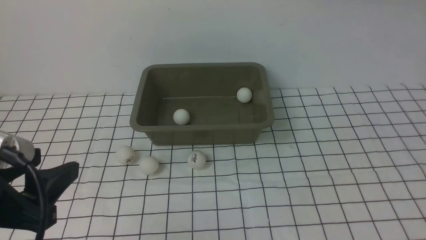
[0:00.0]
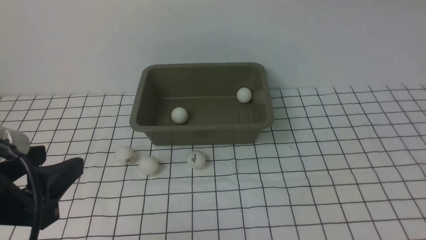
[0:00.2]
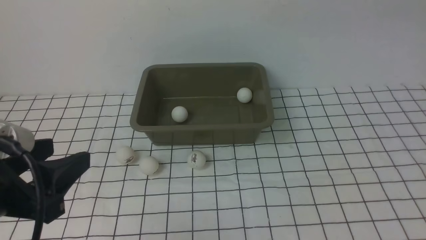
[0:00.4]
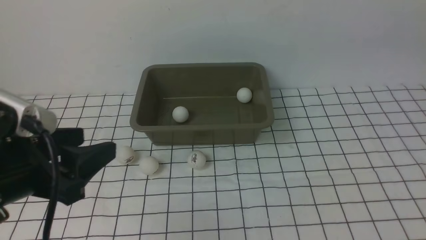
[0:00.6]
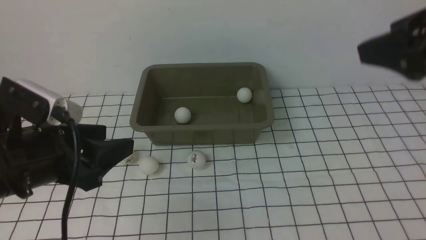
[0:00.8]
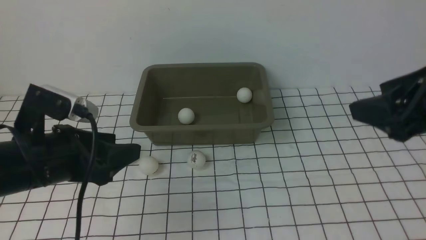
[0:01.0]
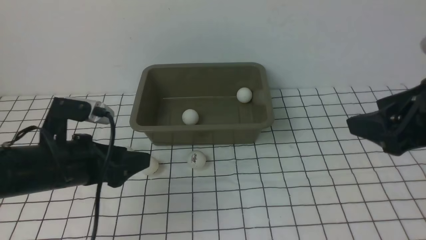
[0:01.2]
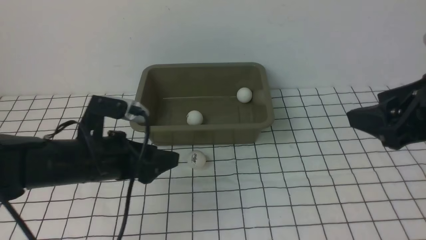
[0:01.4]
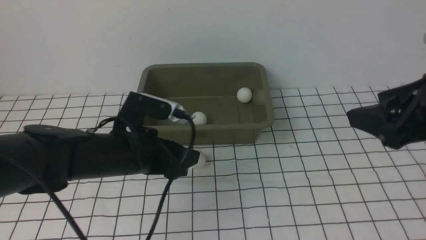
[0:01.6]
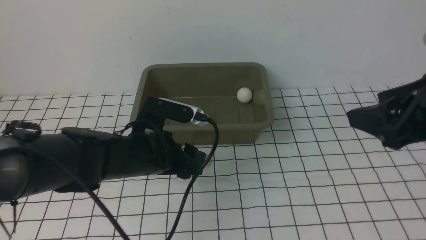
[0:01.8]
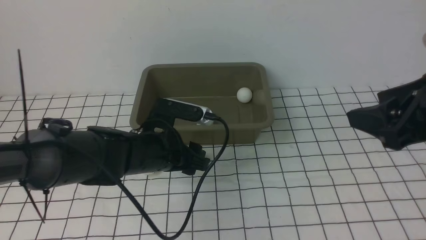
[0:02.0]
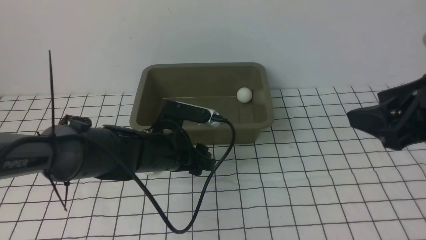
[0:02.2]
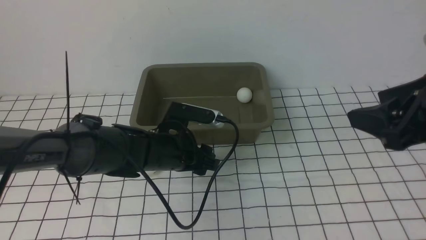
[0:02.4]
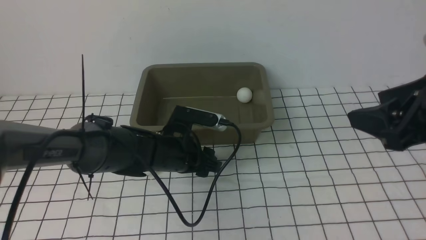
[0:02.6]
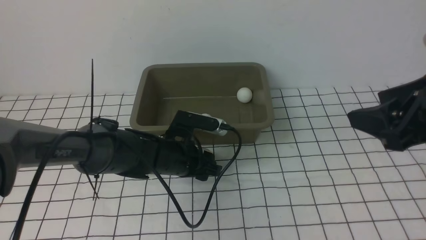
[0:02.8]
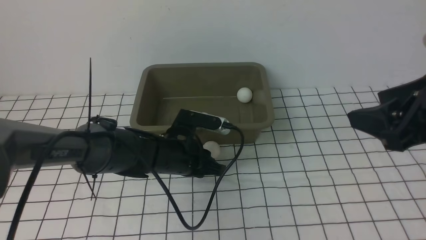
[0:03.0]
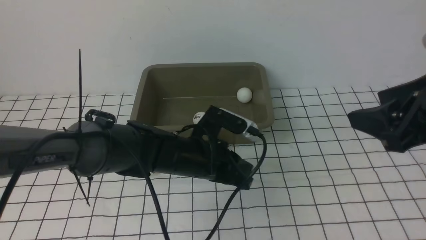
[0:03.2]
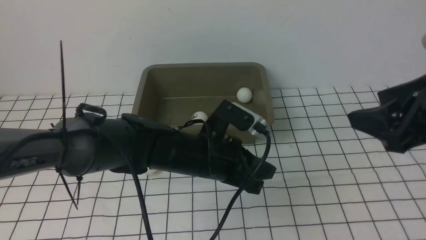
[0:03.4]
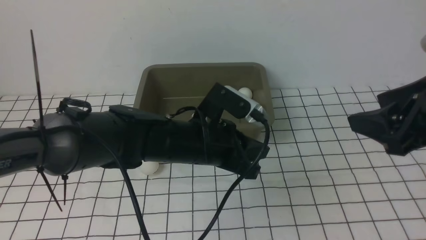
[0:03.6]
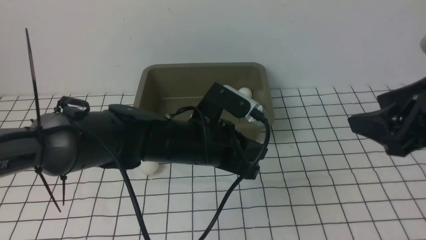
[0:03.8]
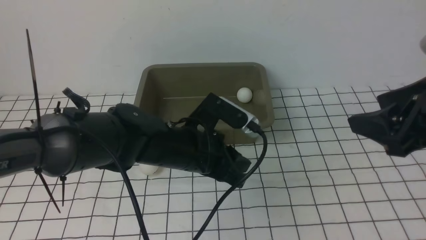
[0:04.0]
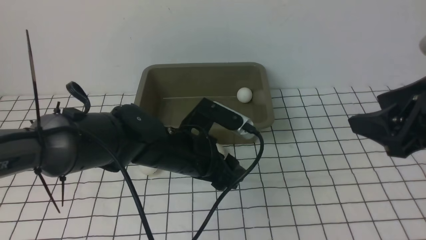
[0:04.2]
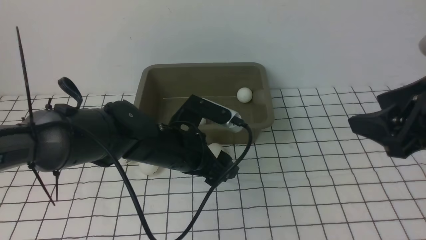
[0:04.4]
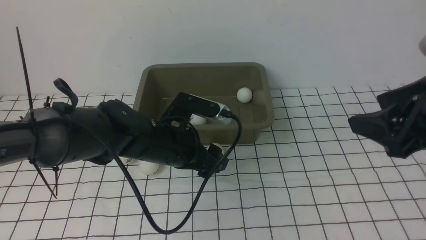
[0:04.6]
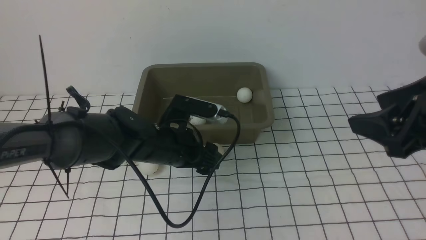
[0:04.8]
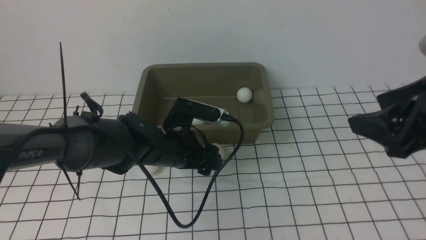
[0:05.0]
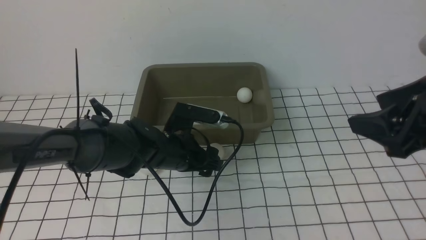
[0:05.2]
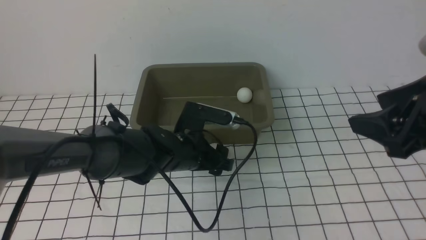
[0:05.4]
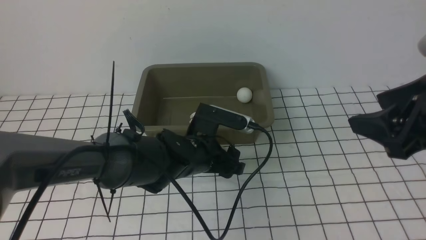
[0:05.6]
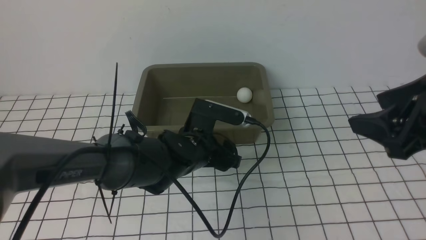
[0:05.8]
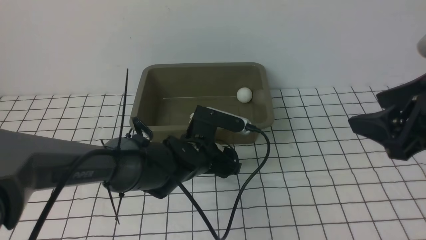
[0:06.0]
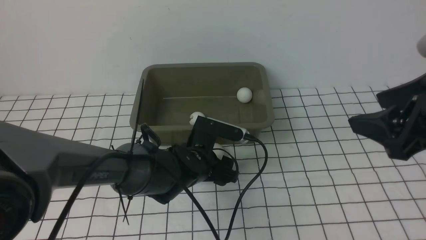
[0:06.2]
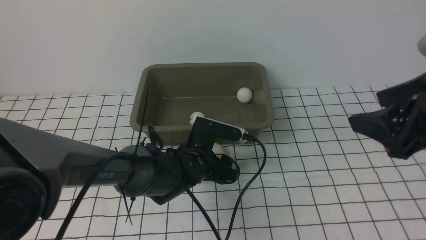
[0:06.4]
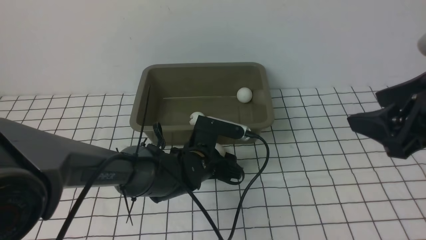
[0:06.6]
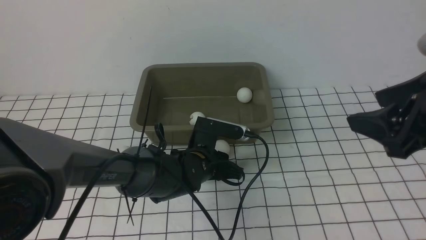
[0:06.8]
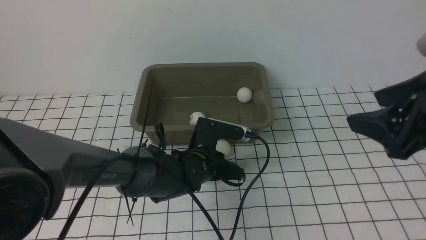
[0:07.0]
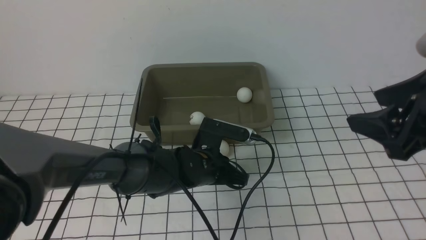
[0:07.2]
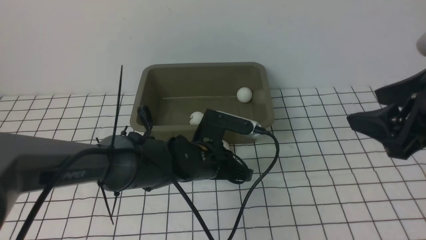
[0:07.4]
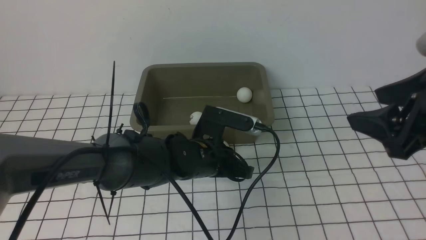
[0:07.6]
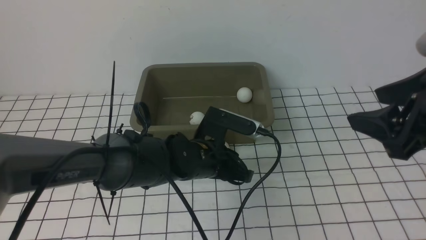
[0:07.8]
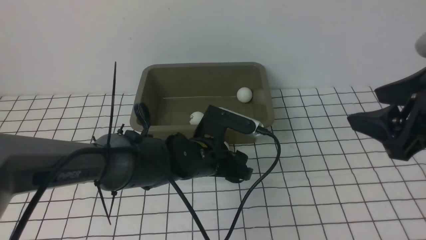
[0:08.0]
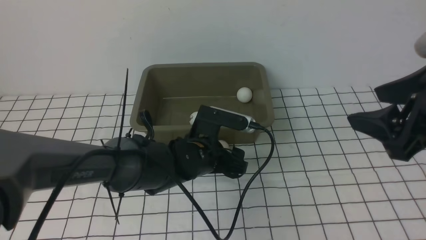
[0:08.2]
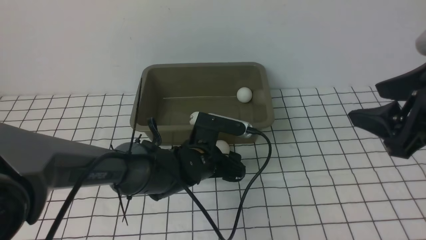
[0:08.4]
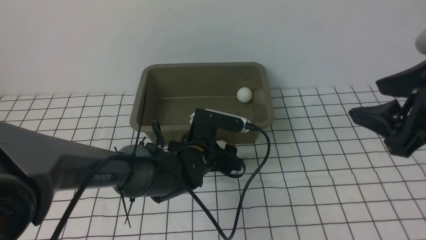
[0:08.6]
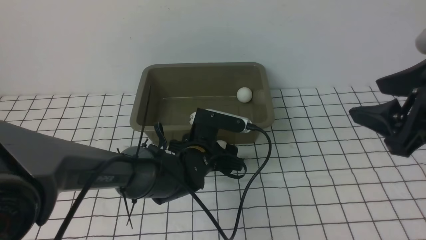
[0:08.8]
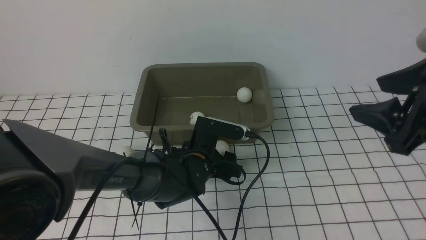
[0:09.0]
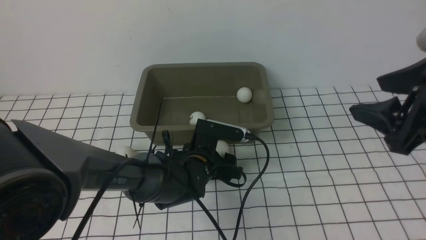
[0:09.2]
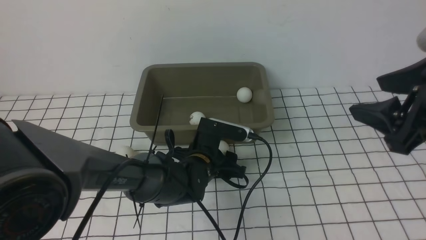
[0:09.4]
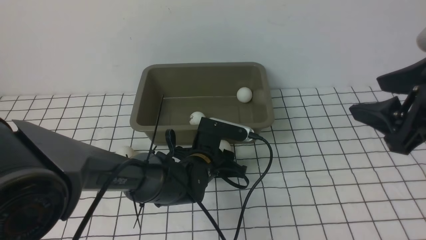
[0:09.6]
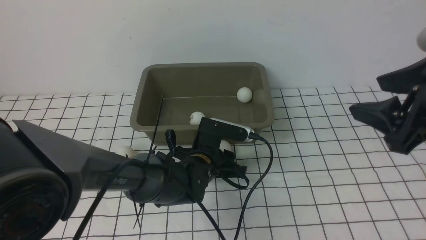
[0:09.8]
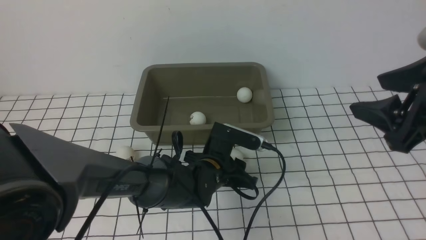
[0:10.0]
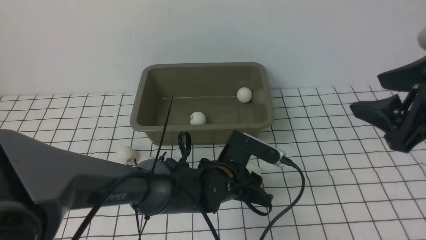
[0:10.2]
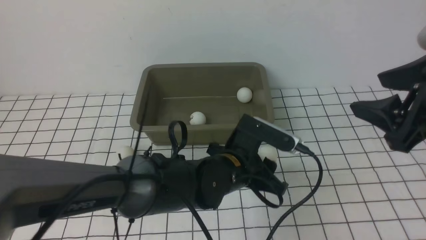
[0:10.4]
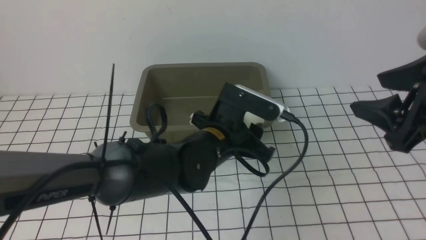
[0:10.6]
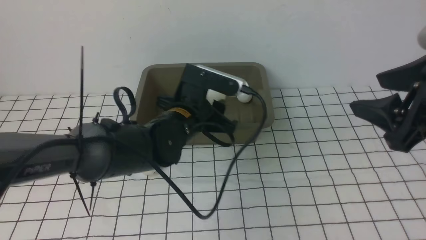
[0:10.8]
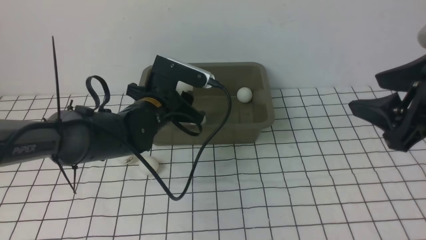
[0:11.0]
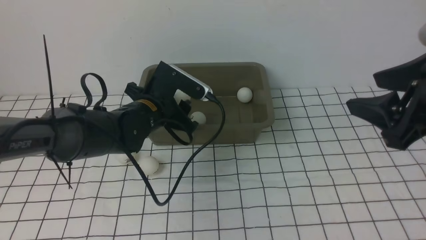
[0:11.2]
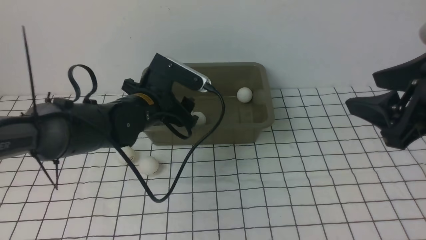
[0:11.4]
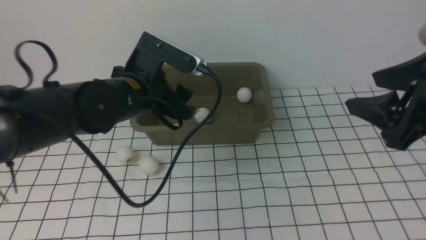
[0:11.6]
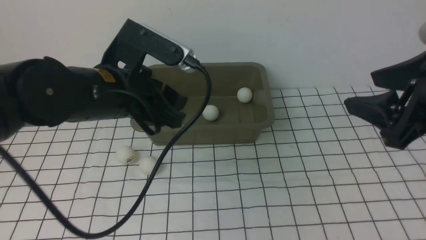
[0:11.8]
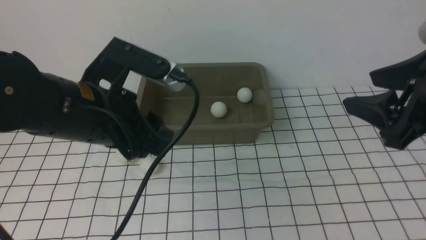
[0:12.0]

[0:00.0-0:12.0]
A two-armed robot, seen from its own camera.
Step, 0:00.0 to 0:10.0: use the left arm to clamp the table tennis ball closest to it.
Step, 0:10.2 to 0:11.4: use the left arm to put the table tennis ball into the box.
0:00.0 to 0:01.6: The right gripper heads downward and backward, covering approximately 20 cm; the left gripper goes roughly 25 cm forward, downward and to the right.
0:01.6 to 0:03.0: The left gripper shifts about 5 cm to the right, and closes.
0:03.0 to 0:04.4: The left gripper opens up.
0:04.4 to 0:06.0: The left gripper goes some 5 cm downward.
0:06.0 to 0:07.6: The left gripper closes its fingers.
0:07.6 to 0:09.0: The left gripper shifts by some 5 cm, and opens.
0:09.0 to 0:10.4: The left gripper is displaced upward by some 5 cm, and closes up.
0:10.4 to 0:12.0: The left gripper shifts about 20 cm to the left and upward.

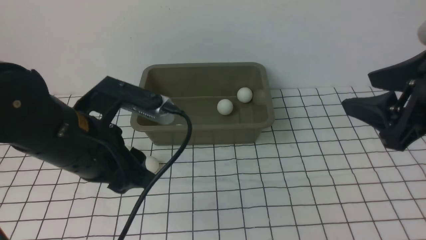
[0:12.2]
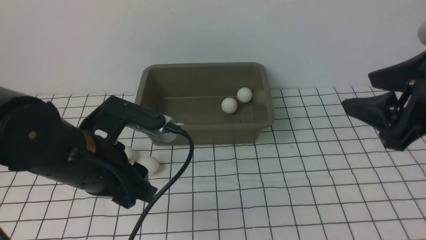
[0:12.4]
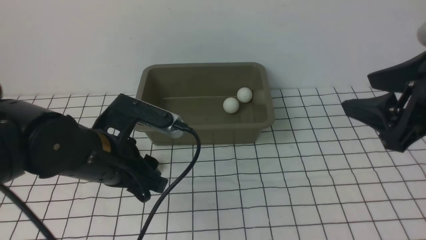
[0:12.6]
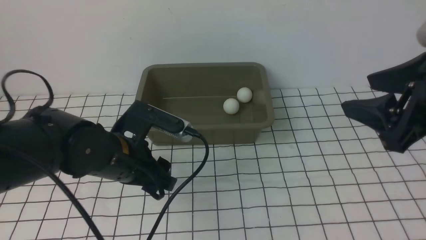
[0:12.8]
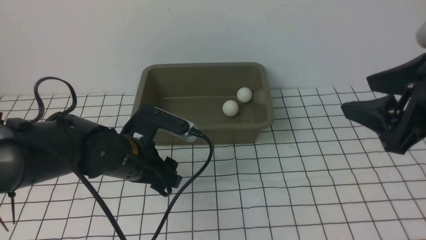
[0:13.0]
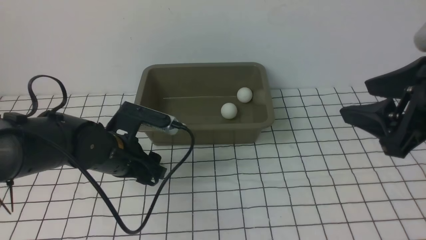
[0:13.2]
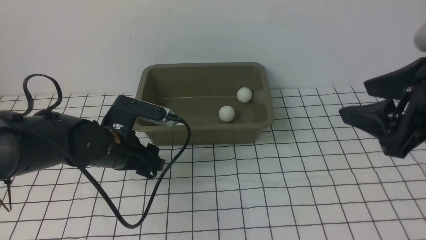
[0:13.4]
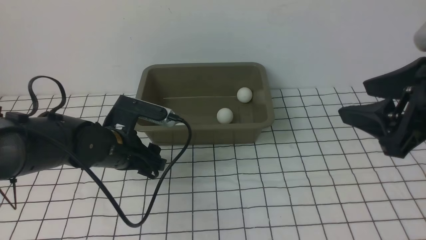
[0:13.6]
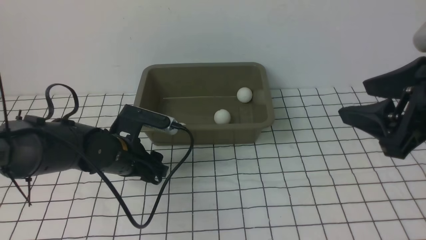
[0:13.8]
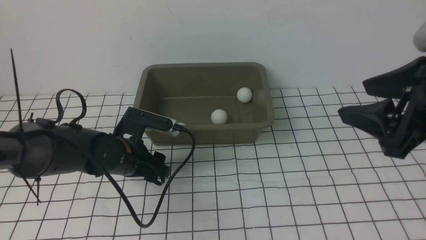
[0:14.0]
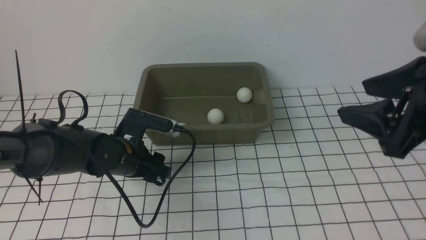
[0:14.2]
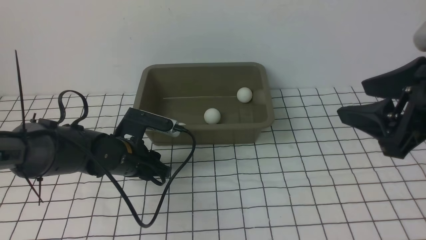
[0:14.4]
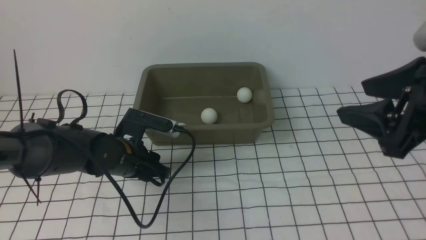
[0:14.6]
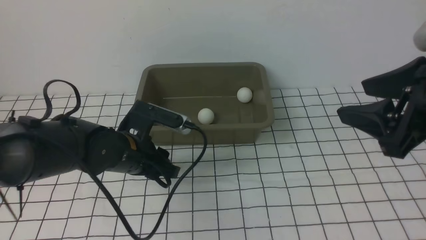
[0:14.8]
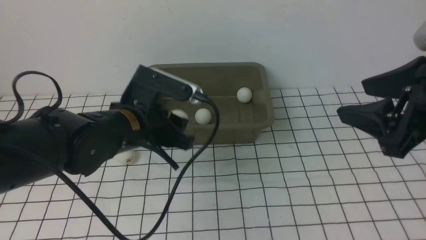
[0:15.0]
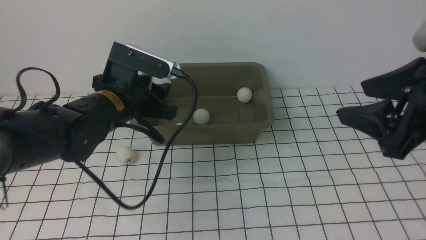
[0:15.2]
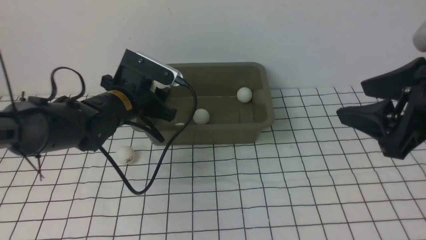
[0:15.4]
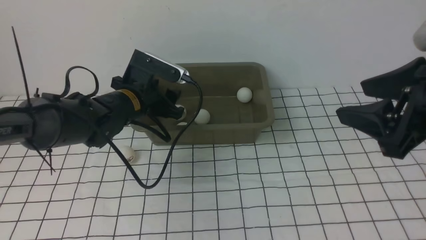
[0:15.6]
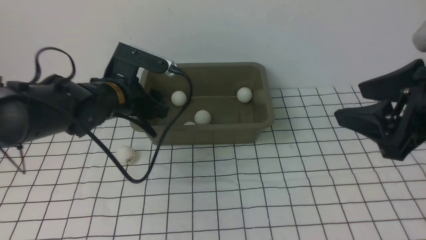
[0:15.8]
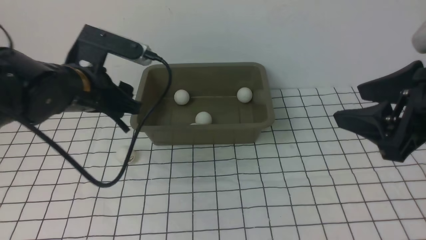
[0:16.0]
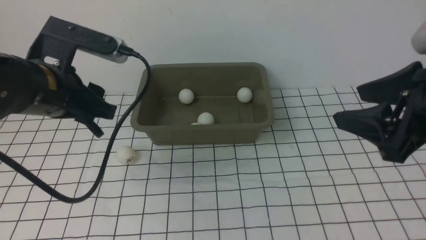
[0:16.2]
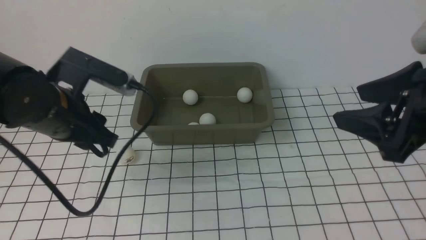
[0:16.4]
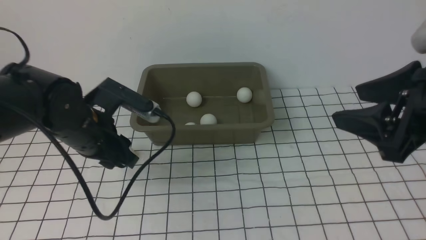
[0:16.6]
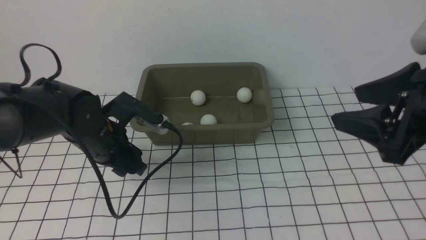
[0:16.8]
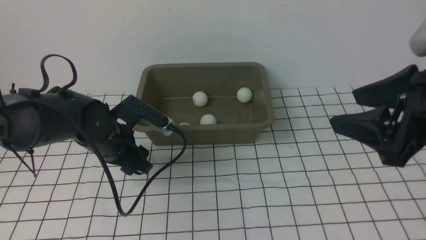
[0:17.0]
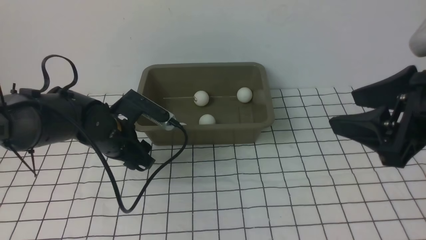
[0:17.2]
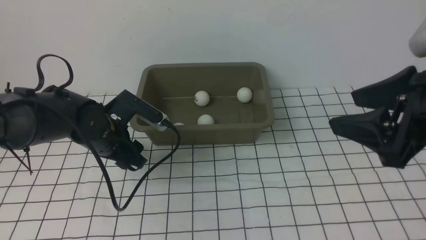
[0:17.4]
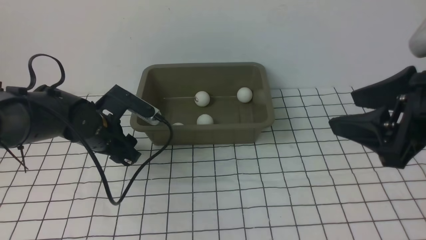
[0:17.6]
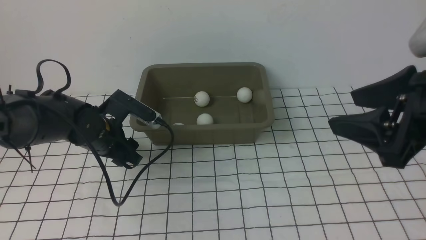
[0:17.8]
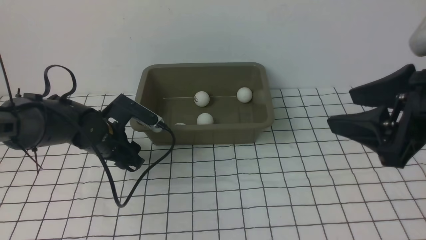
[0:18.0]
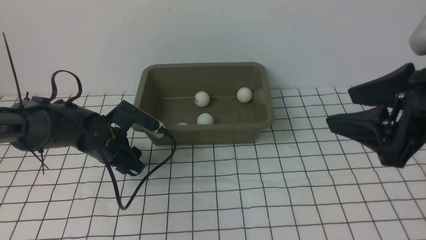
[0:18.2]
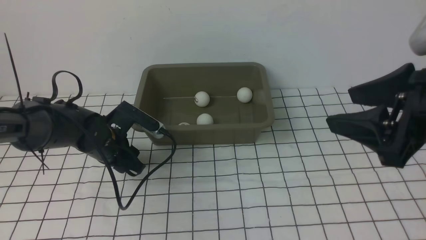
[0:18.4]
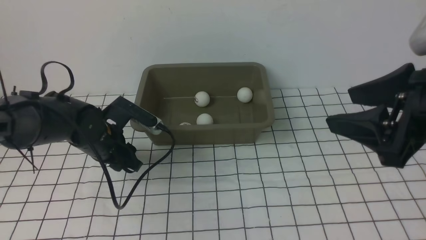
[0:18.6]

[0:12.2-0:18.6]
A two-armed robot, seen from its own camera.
Step, 0:12.2 to 0:14.8: use the left arm to clamp the table tennis ball closest to it.
Step, 0:15.0 to 0:15.6: use the left arm to put the table tennis ball into the box.
0:12.2 to 0:13.8: The left gripper heads downward and forward, covering approximately 15 cm.
0:13.8 to 0:15.4: The left gripper is displaced upward and forward by some 10 cm.
0:15.4 to 0:17.0: The left gripper moves about 10 cm upward and comes back.
0:17.0 to 0:18.6: The grippers move only a little.
